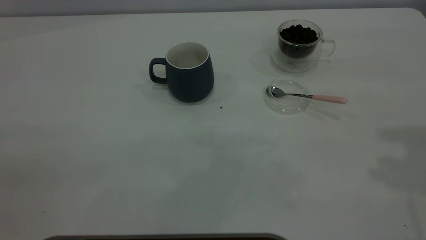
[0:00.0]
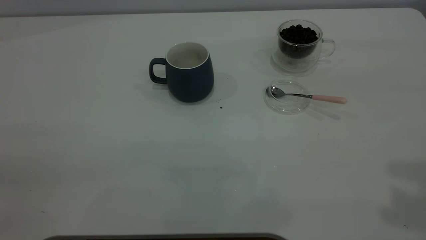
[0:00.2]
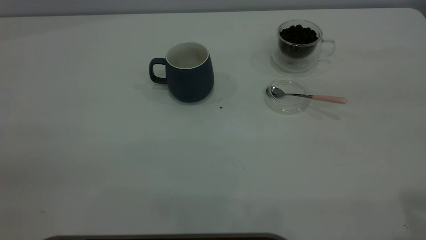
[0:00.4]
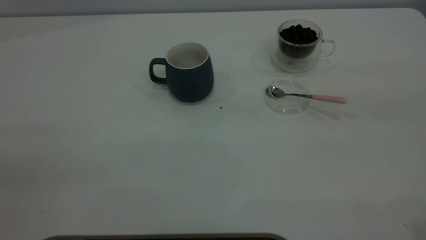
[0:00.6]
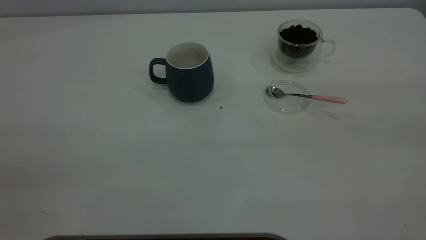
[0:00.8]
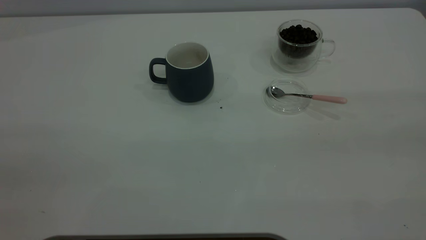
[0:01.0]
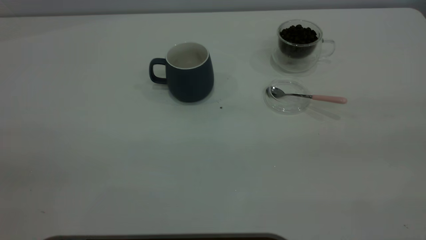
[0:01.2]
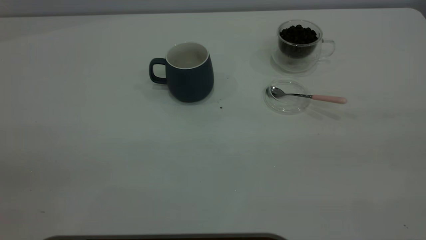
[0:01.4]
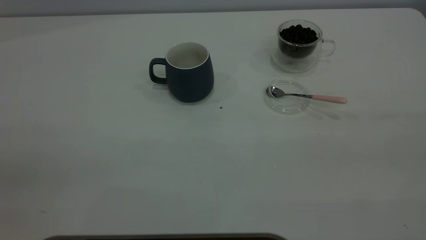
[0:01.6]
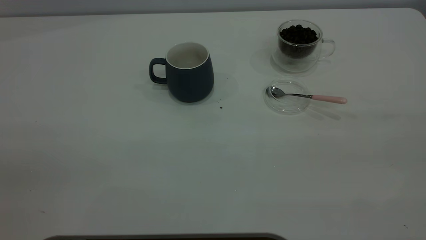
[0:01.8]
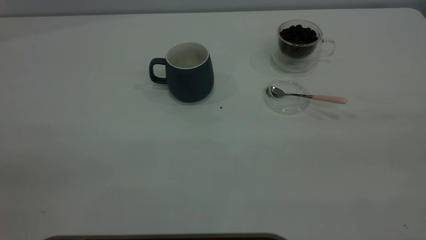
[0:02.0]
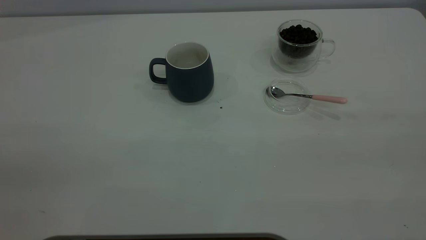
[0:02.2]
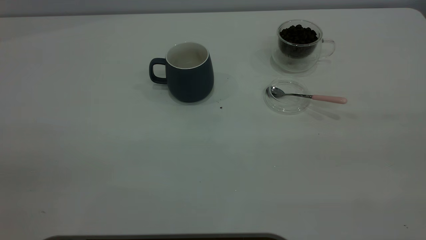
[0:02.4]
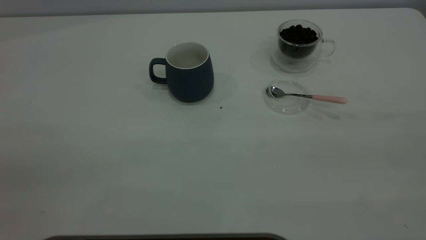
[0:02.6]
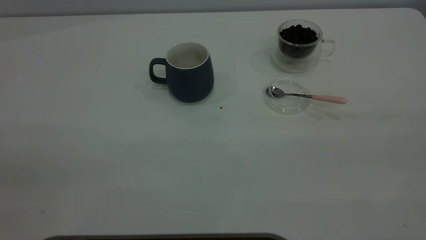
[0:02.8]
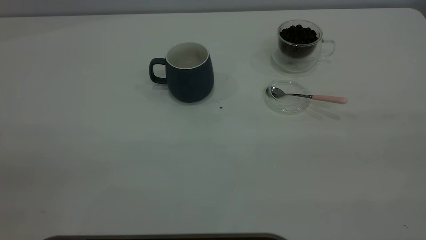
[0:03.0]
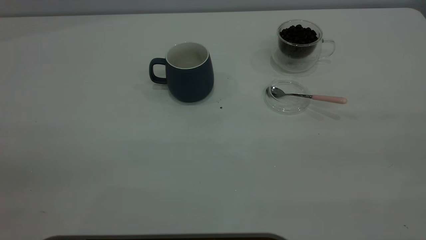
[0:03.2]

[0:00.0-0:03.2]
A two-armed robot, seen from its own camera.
Task of the whole recording: the left gripper place the grey cup in the center of the table, the right gripper take the pink spoon from the cup lid and scoop out the coffee beans from the coffee cup and put them into the grey cup, the right gripper put the spoon back into the cup lid.
0:01.6 to 0:03.2: The two grippers keep their place.

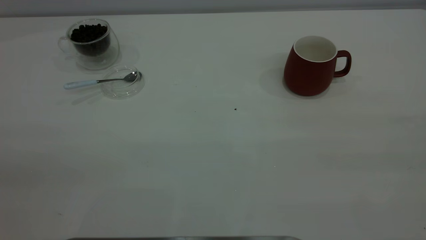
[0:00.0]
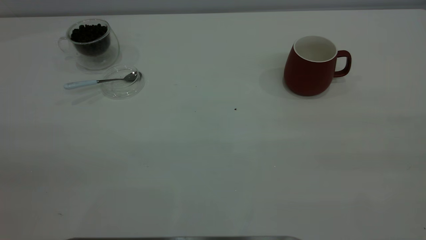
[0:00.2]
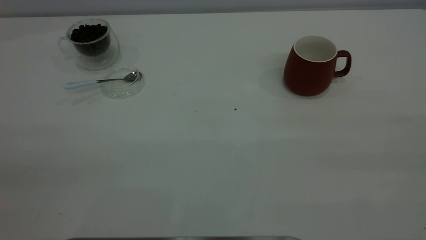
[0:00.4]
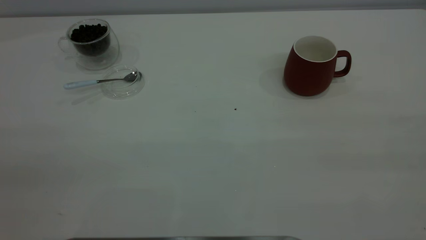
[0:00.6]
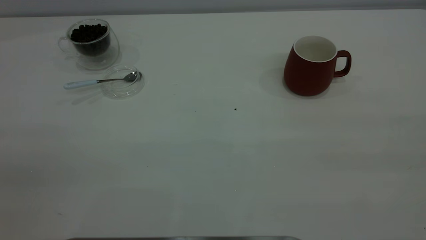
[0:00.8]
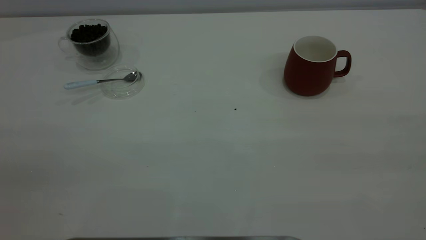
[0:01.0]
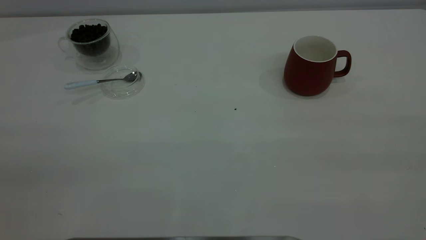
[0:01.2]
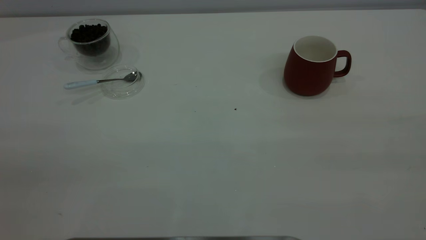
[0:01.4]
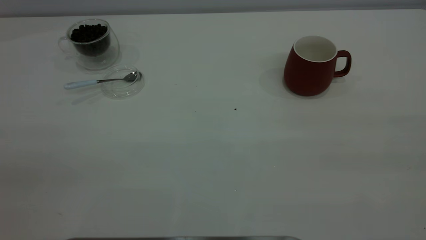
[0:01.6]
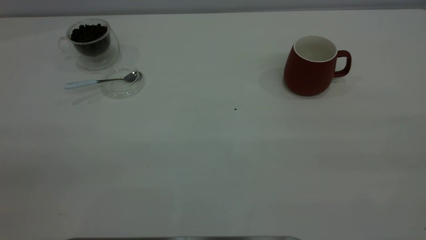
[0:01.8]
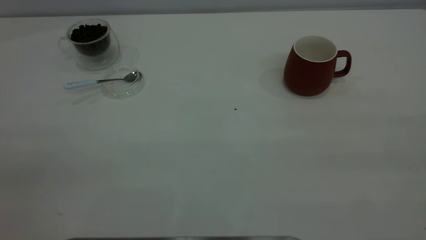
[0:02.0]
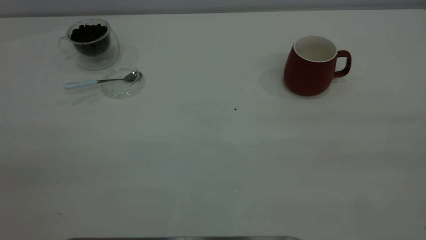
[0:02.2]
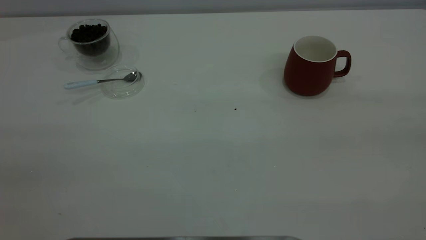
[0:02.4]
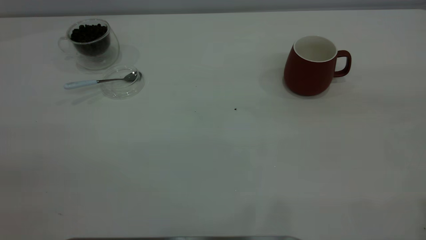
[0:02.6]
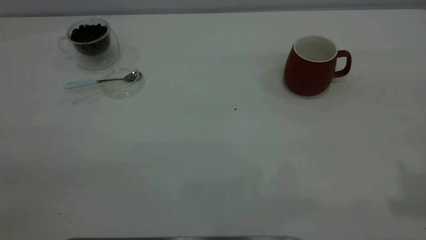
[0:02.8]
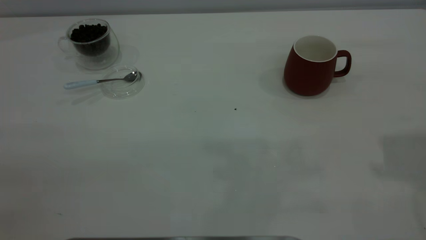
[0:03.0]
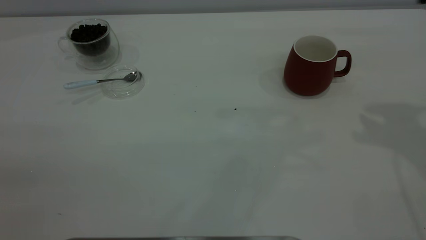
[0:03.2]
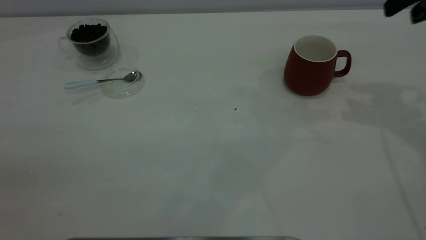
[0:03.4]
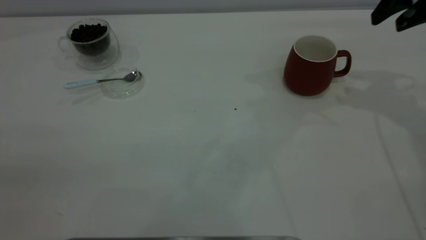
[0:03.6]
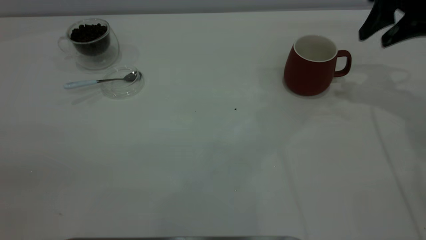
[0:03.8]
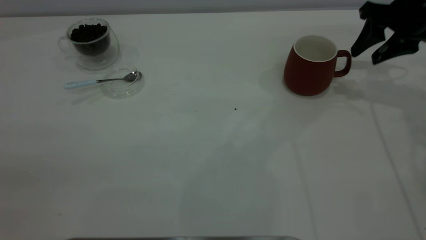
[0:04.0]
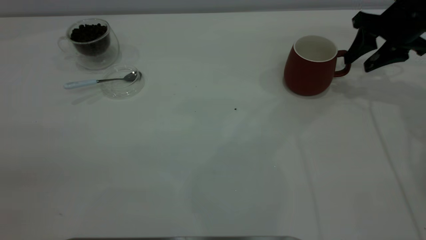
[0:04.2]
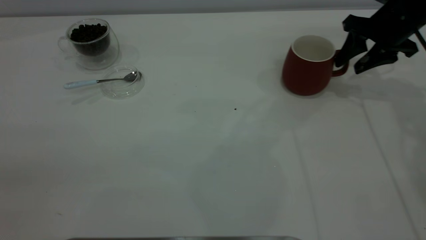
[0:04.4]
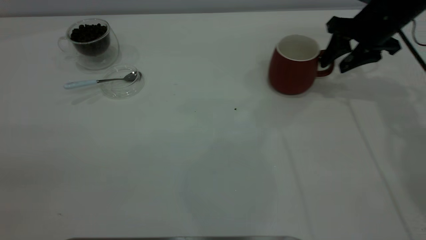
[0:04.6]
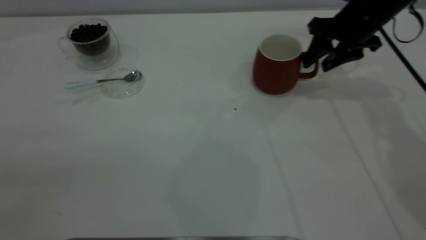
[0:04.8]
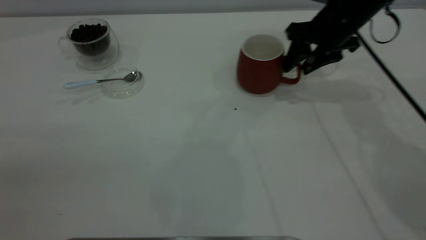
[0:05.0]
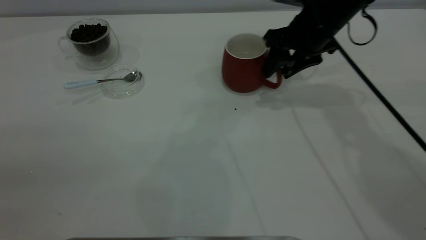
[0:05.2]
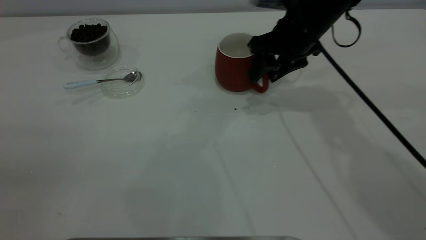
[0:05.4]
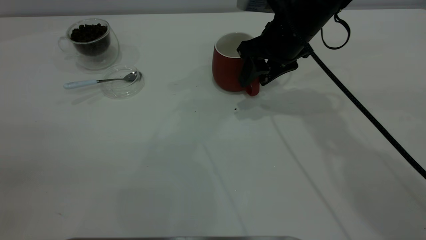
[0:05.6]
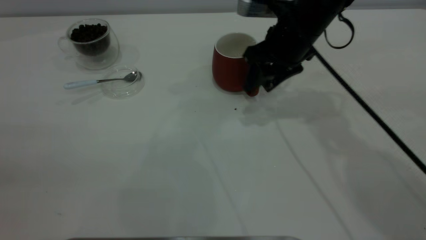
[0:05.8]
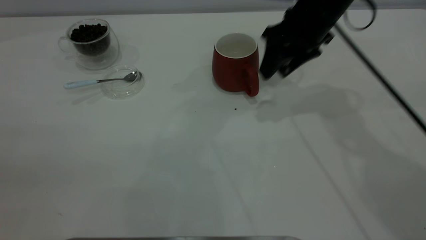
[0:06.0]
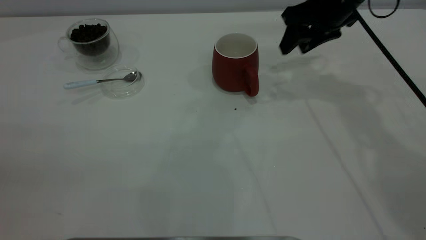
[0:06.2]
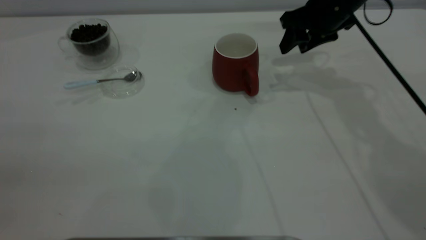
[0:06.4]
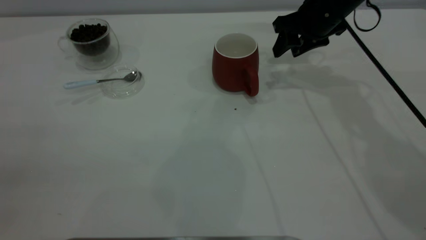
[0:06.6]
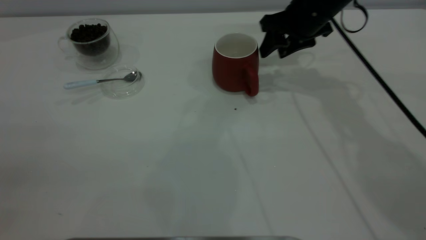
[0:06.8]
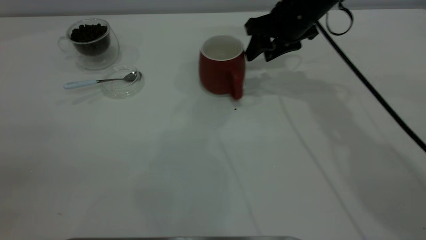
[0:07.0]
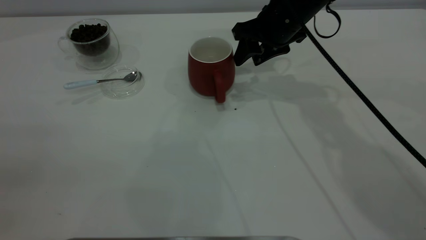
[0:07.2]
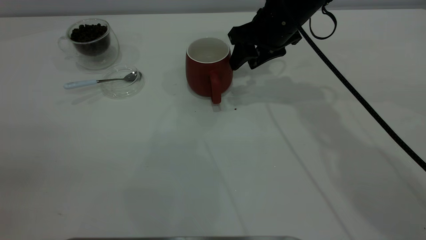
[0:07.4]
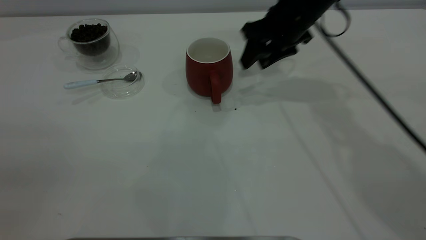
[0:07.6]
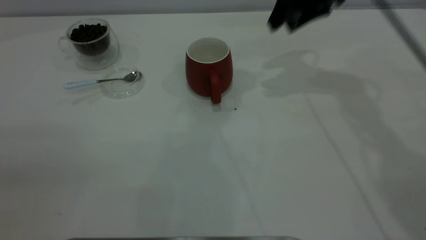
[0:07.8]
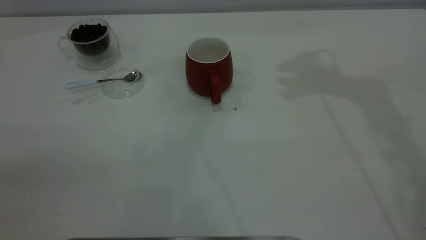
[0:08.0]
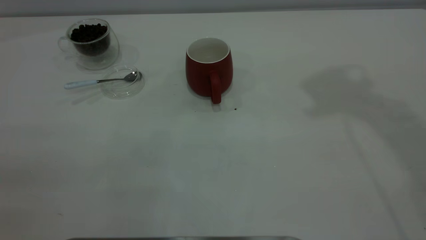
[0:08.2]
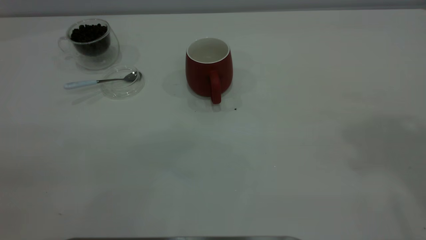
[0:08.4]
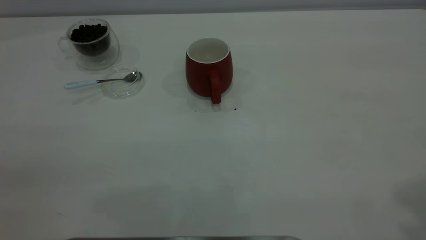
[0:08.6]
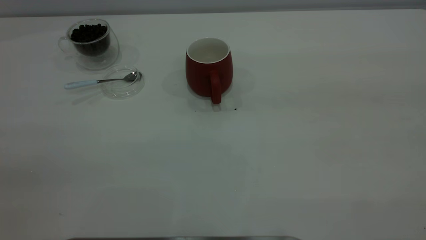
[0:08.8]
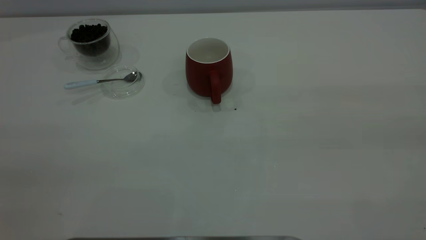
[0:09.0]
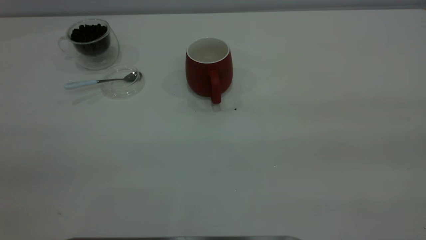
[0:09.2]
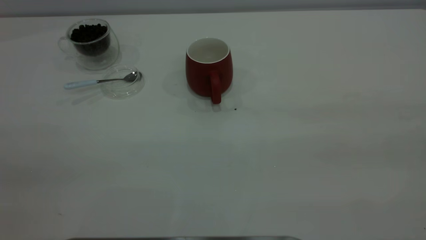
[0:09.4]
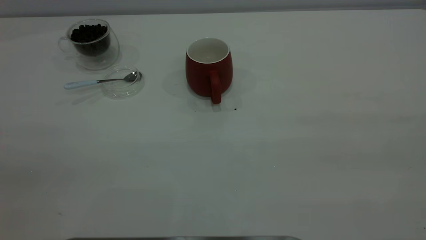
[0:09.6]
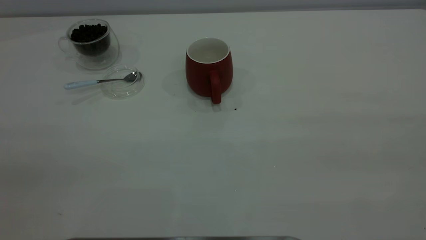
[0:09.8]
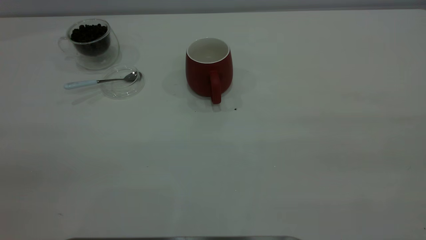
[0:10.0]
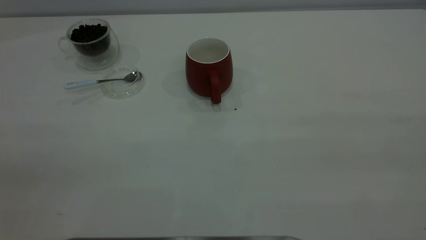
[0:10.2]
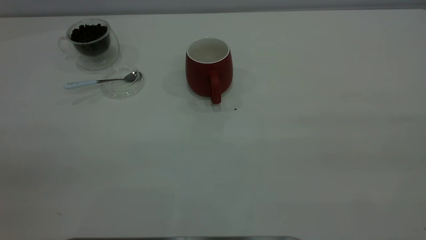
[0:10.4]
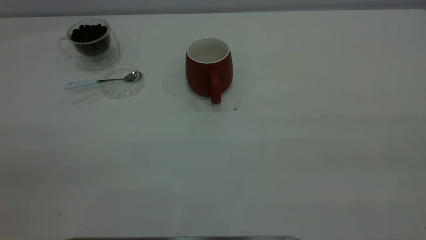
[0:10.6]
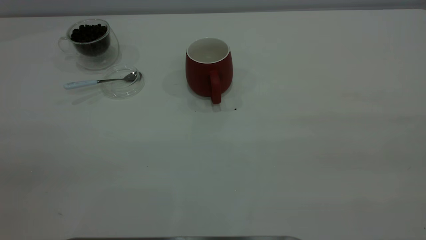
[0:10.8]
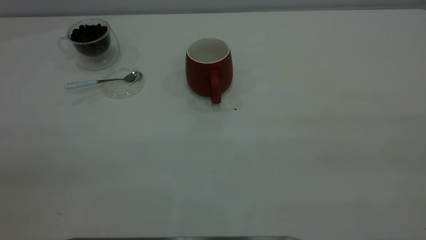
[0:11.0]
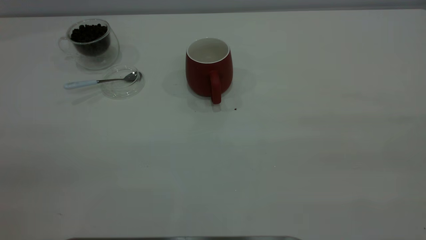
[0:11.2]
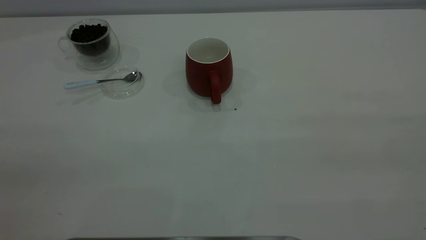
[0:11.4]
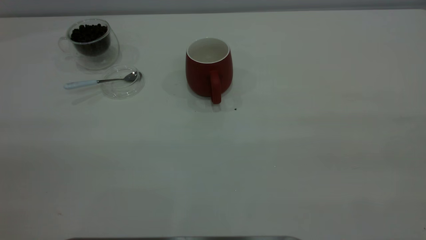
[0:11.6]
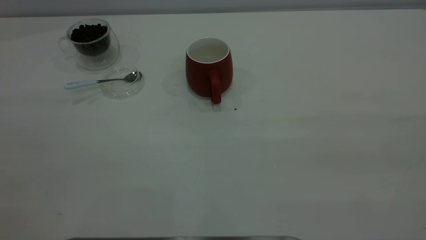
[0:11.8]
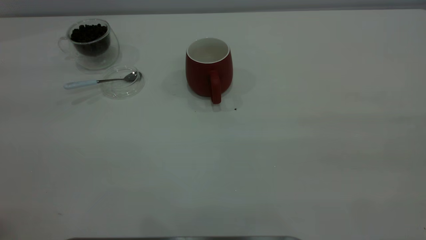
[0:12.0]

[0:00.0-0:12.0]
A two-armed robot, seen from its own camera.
Task of the whole recording: the right gripper place the red cup in the center of the table, the left gripper take the blue spoon from the cup lid and scoop out the coffee beans from the coffee cup and put them into the red cup, the left gripper put the spoon back into the cup lid.
Step, 0:00.0 to 0:07.4: Move the cup to the center of view.
0:00.0 to 0:01.6: Both grippers stay about where they are.
0:03.0 to 0:04.4: The right gripper shifts roughly 30 cm forward and downward.
0:04.4 to 0:06.0: The right gripper moves to the left, roughly 15 cm.
0:07.6 to 0:09.0: The right gripper heads backward, upward and to the right, covering about 50 cm.

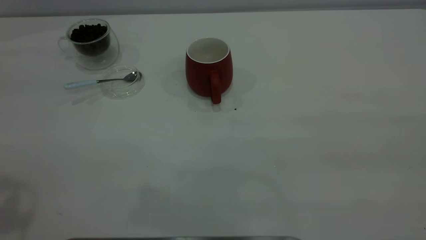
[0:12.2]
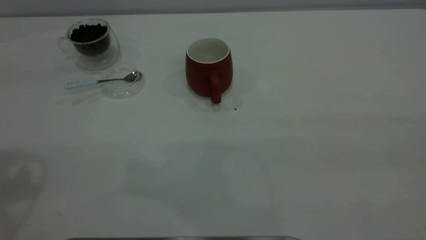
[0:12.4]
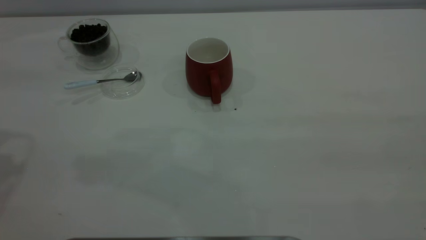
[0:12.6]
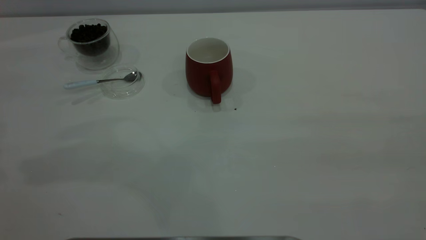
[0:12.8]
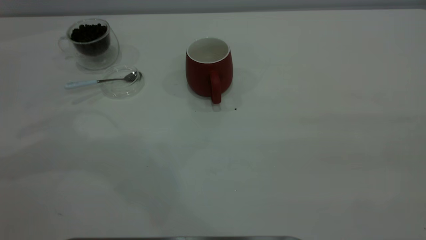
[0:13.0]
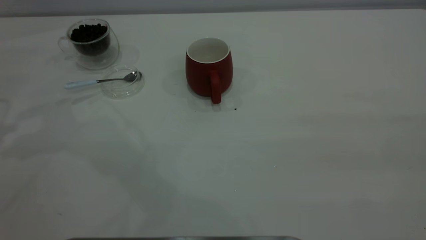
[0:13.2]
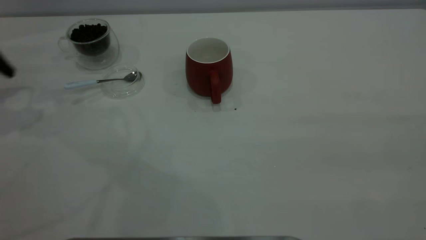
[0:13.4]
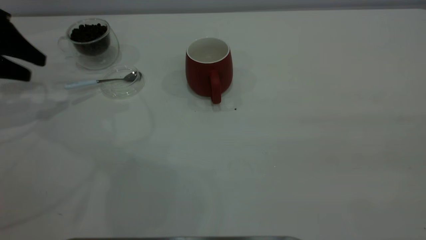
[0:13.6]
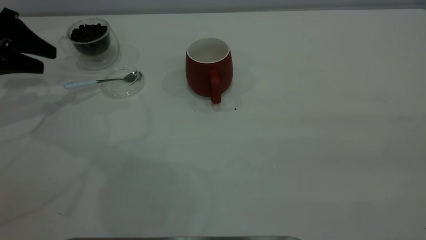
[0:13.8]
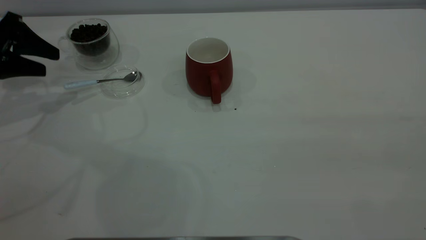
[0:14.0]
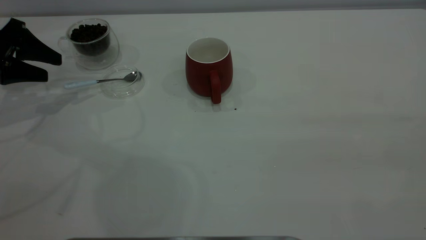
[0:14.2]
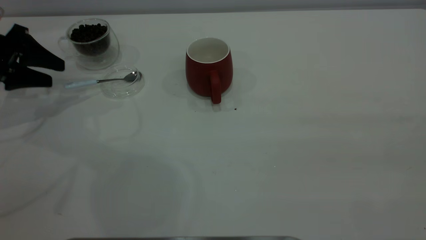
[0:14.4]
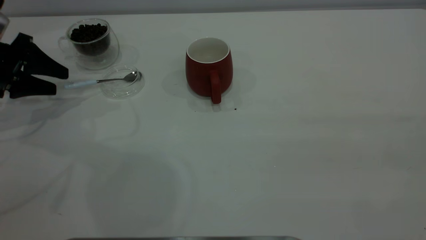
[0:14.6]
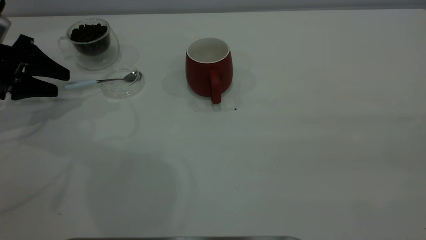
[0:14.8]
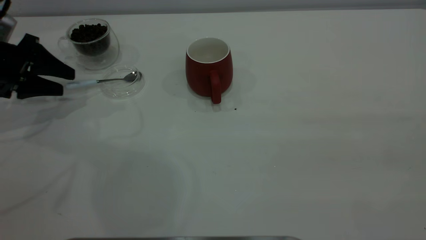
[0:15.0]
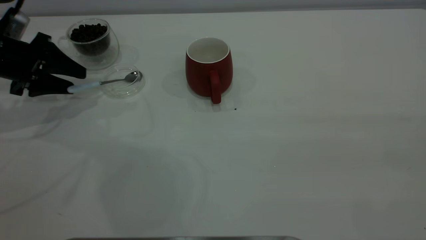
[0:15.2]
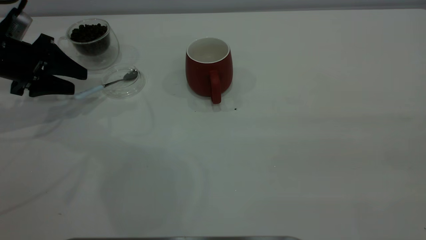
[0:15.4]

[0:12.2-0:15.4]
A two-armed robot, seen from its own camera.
Task of the whole recording: the right gripper place the red cup in the center of the table, the left gripper take the blue spoon from the cup lid and scoop out the coffee beans from the coffee cup and put them into the red cup, the left gripper put the spoon back into the cup lid.
0:12.2 to 0:13.8: The left gripper goes about 35 cm downward and forward.
0:13.8 to 0:15.4: The left gripper moves approximately 5 cm.
